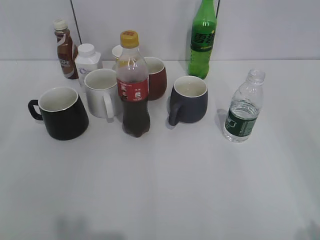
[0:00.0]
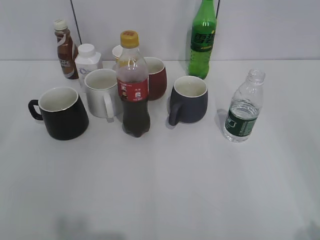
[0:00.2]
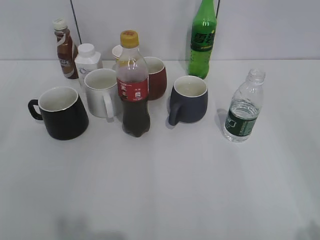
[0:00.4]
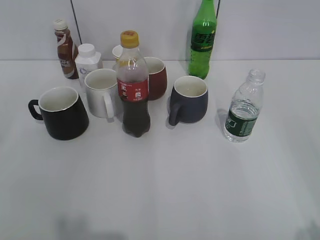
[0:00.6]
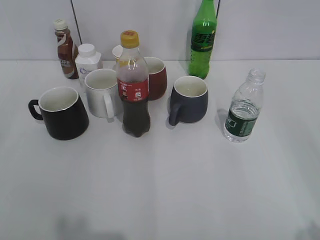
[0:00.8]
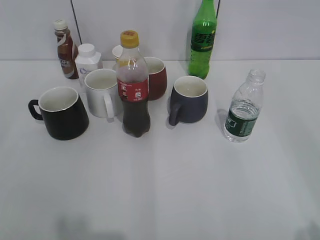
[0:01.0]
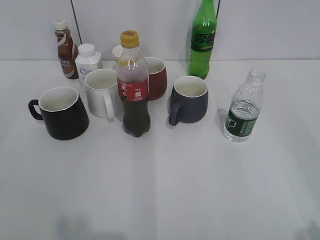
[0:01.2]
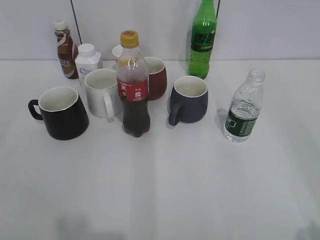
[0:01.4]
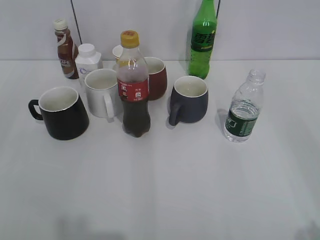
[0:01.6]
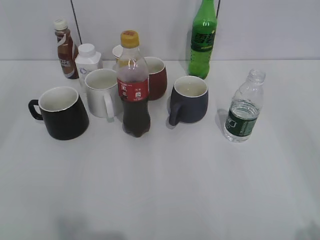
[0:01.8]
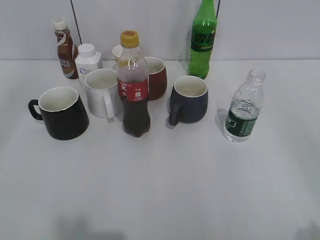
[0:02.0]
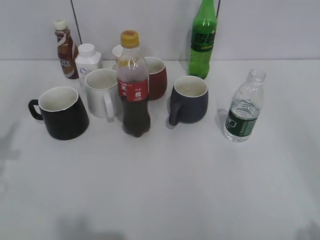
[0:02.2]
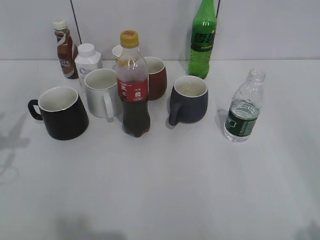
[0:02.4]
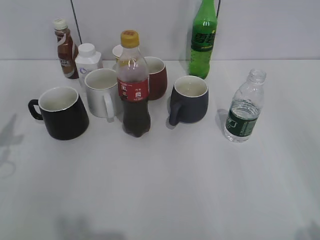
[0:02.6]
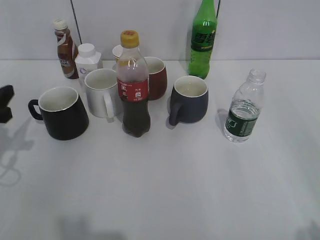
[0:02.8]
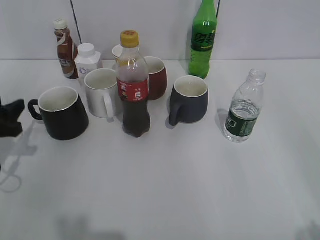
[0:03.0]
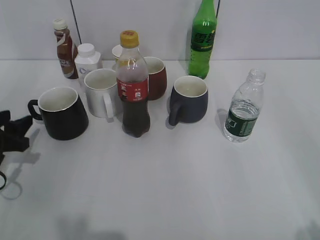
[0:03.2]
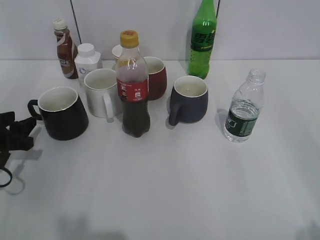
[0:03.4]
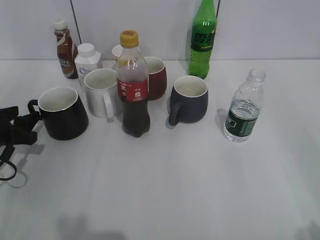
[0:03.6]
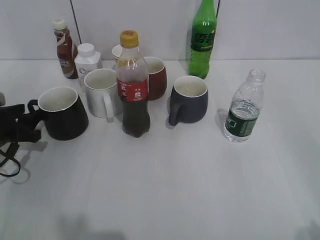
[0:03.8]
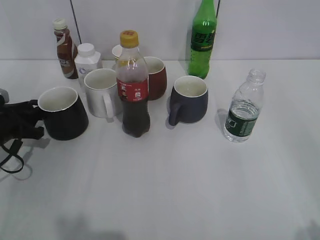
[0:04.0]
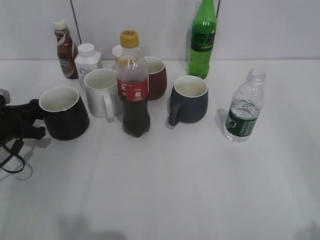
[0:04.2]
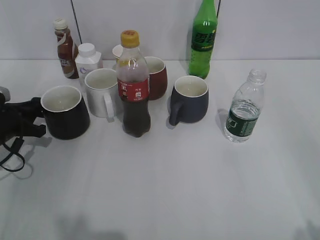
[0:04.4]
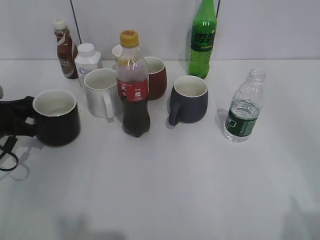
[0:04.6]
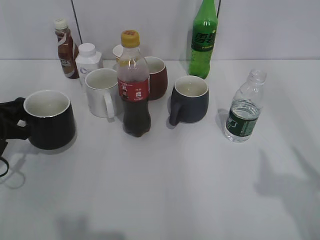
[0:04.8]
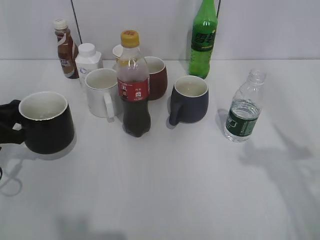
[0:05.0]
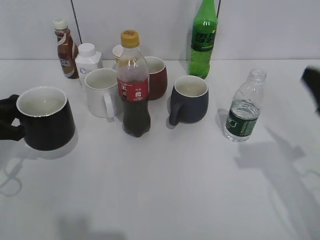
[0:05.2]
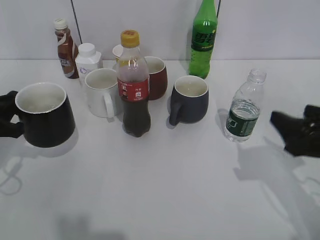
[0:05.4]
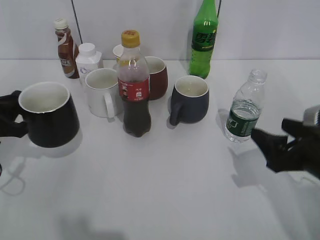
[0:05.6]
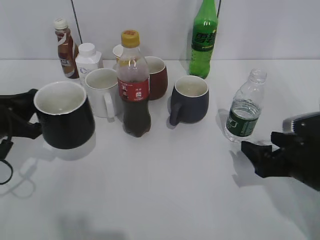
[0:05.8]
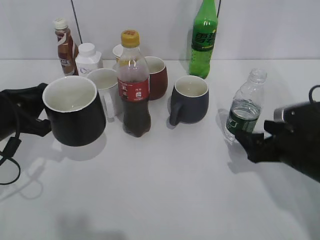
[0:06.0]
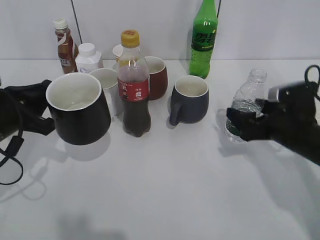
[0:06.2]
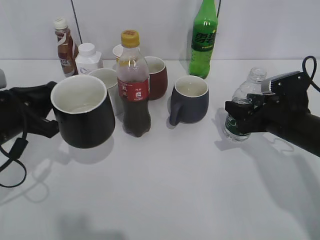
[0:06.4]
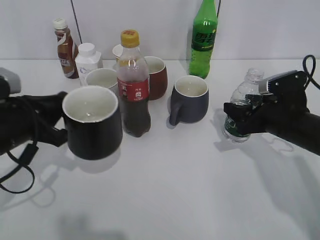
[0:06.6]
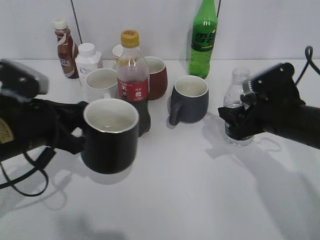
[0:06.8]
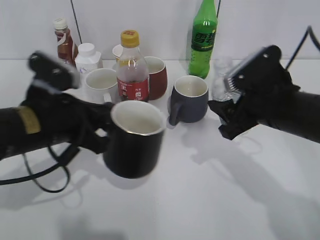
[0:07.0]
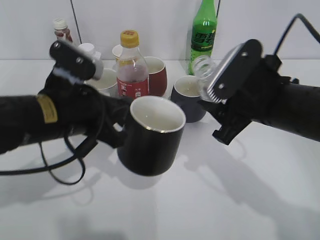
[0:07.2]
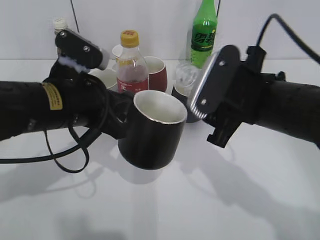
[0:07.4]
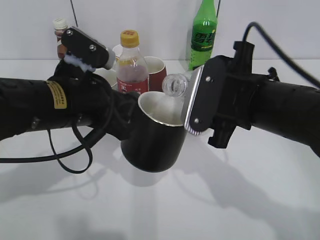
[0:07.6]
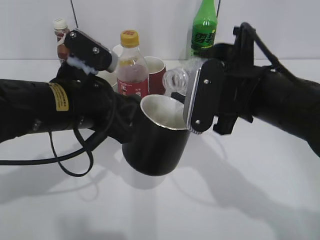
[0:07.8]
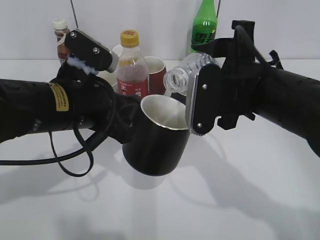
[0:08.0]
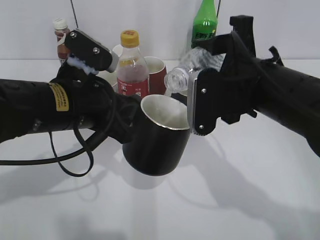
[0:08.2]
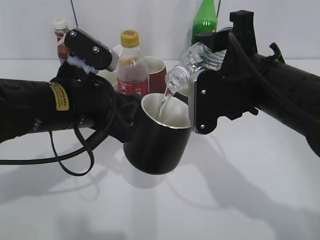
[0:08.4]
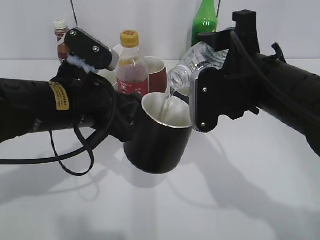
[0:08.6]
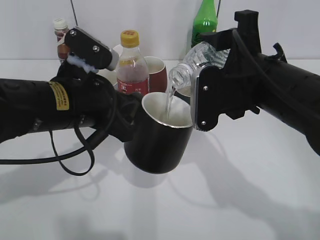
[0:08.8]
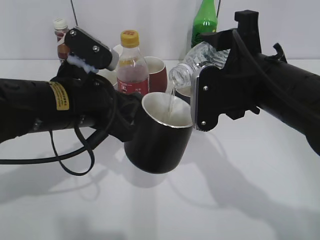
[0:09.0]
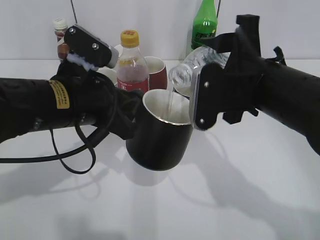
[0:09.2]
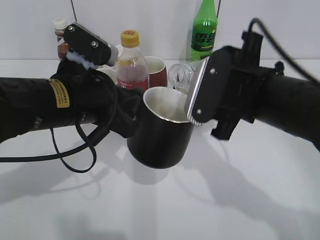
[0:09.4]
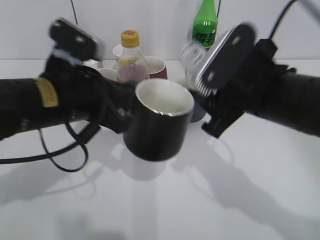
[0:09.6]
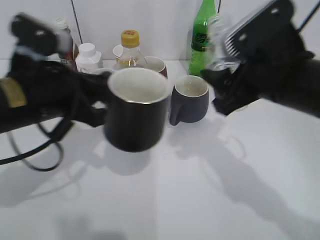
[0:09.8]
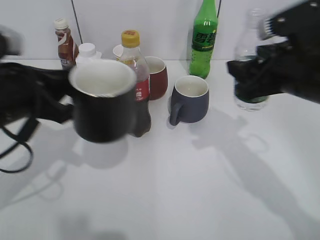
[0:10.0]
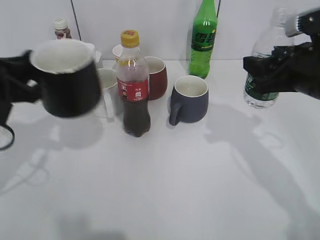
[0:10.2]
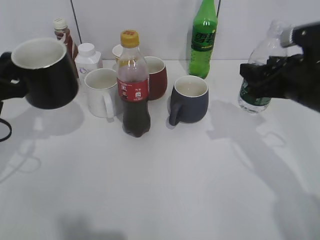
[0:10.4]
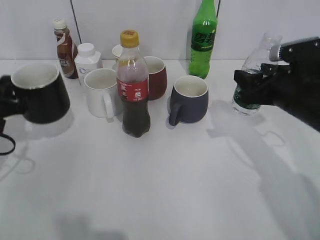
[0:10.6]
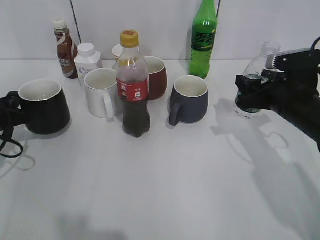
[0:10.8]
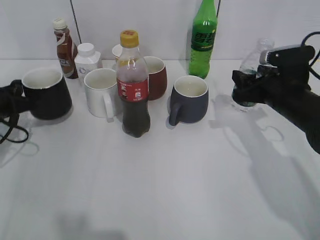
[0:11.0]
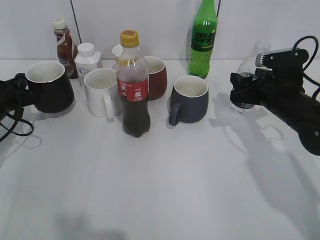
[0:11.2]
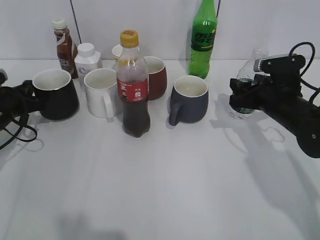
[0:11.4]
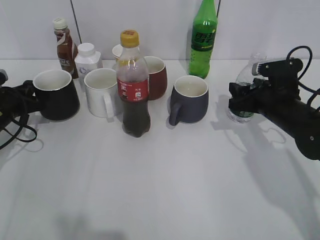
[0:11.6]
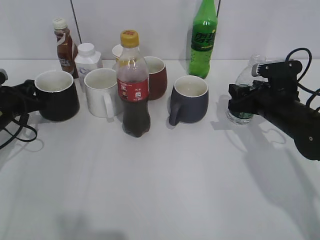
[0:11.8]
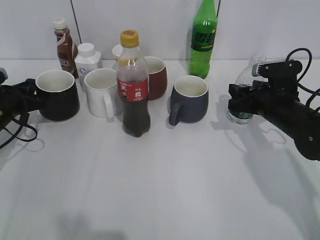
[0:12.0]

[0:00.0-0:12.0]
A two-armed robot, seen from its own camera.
Step, 0:01.2 to 0:04.2: Grasp the black cup with left gripper.
Step, 0:04.4 to 0:05.4: Lift the black cup with left gripper.
Step, 0:05.6 to 0:06.4: Grasp the bottle with water with right gripper.
Step, 0:06.6 to 0:09.4: Pour the water from bottle to cup with right gripper.
0:01.6 to 0:03.0: The left gripper travels forward and downward by approximately 30 cm.
0:03.0 to 0:04.4: The left gripper is displaced forward and downward by about 5 cm, and closes up.
0:04.4 to 0:06.0: The right gripper heads forward and downward, covering about 30 cm, and opens its fingers; the left gripper travels upward, backward and to the right by about 10 cm.
0:06.0 to 0:07.6: The left gripper goes some 15 cm to the right and upward. Meanwhile the right gripper shifts about 20 cm upward and to the left, and closes.
0:09.0 to 0:10.4: The right gripper shifts about 10 cm to the right; the left gripper goes approximately 15 cm to the left.
0:10.4 to 0:12.0: Both grippers move downward and forward, roughly 15 cm.

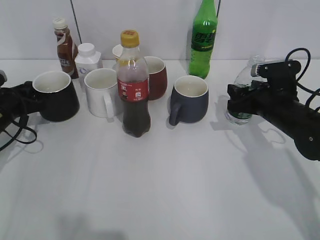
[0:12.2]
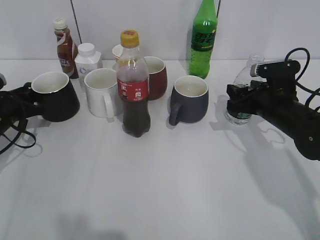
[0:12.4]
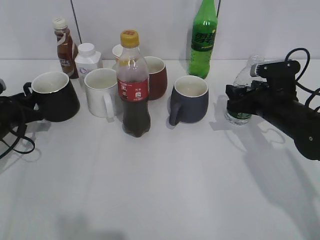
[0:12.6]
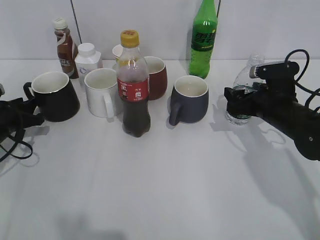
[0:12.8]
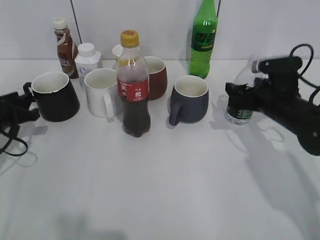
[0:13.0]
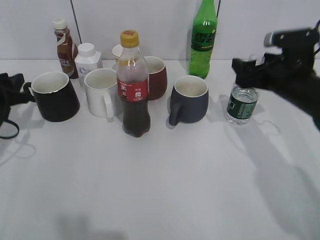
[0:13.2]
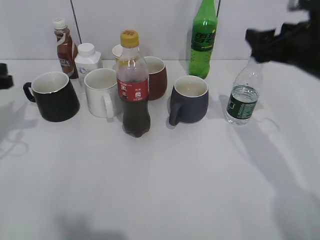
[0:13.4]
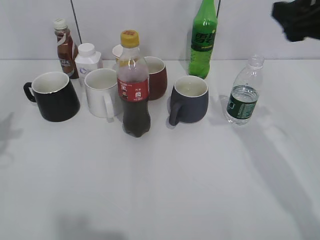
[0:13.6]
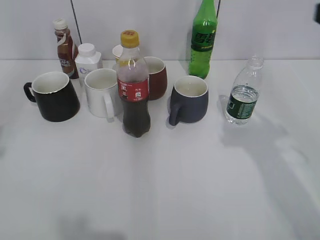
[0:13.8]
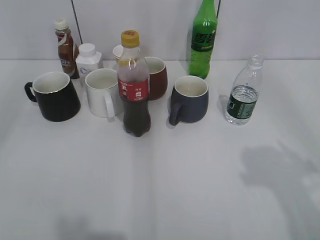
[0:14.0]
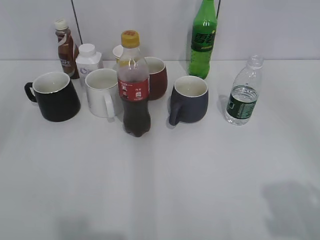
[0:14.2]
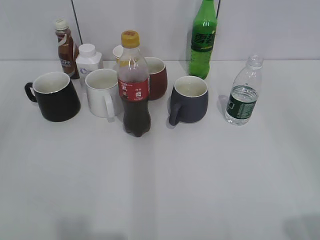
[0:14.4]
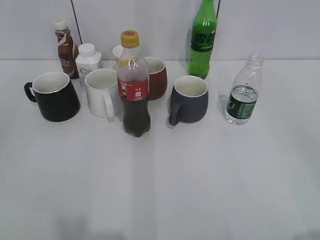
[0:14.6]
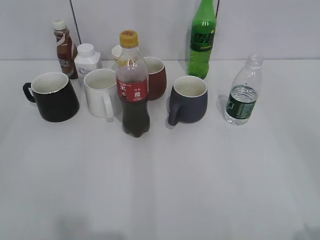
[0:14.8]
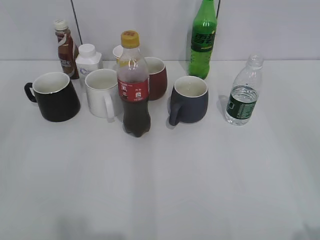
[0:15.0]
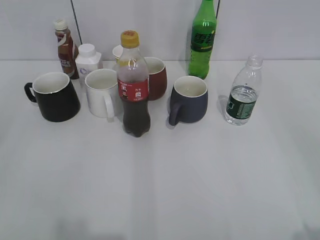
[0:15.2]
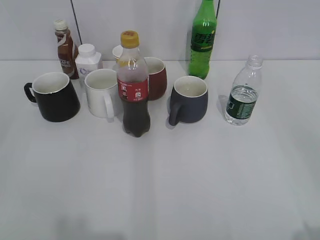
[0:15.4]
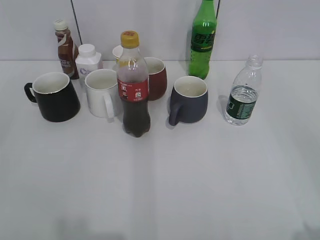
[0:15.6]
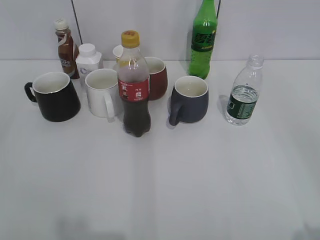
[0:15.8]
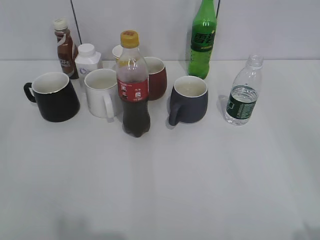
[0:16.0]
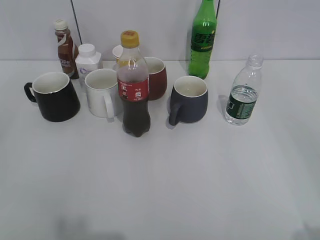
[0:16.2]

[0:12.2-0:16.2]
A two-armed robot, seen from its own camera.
0:12.2 to 0:13.6: The left gripper heads upward and backward, covering about 20 cm. Meanwhile the right gripper moves upward, about 20 cm, and opens its fingers.
0:13.6 to 0:14.8: Both grippers travel together backward, approximately 25 cm. The left gripper opens up.
0:14.8 to 0:16.2: There are only small adjustments of the grippers.
